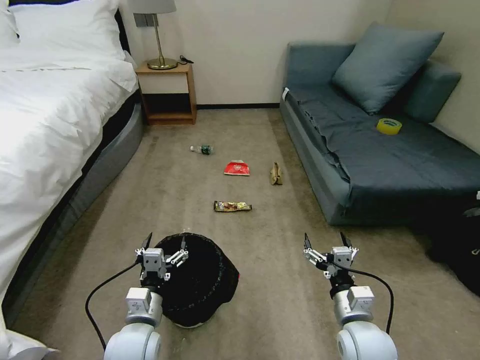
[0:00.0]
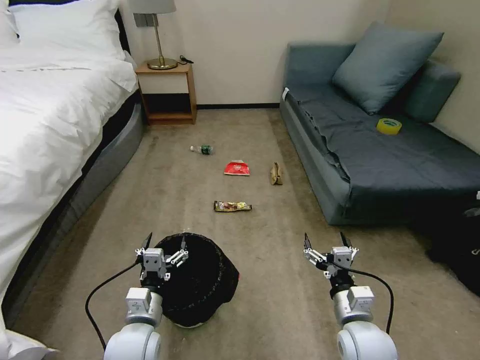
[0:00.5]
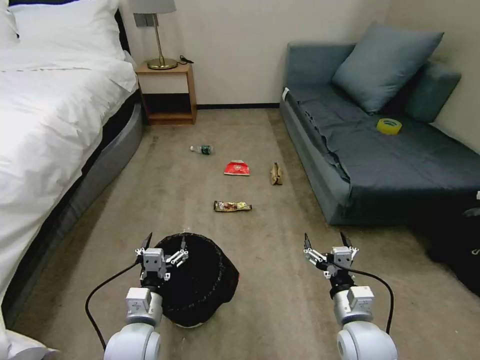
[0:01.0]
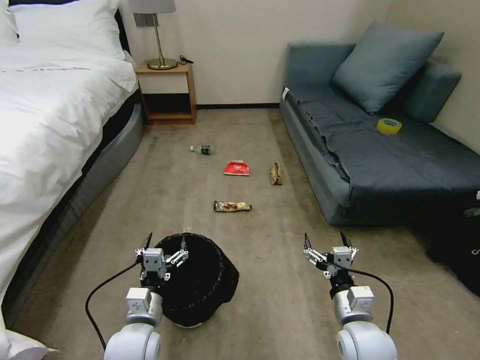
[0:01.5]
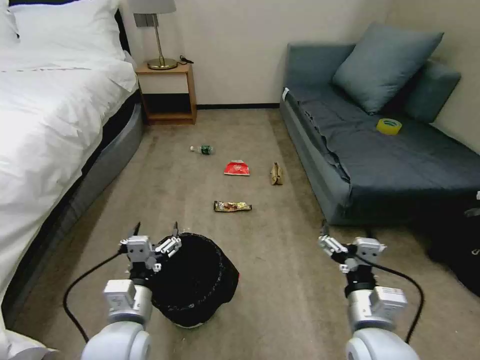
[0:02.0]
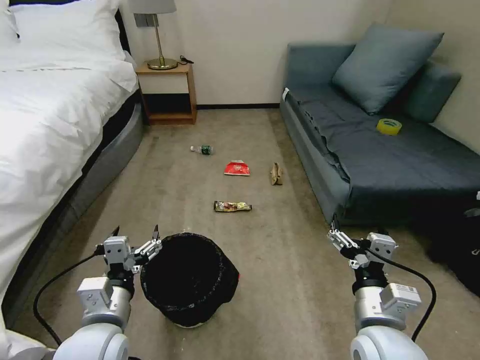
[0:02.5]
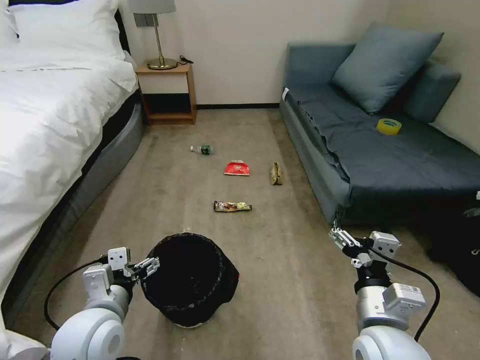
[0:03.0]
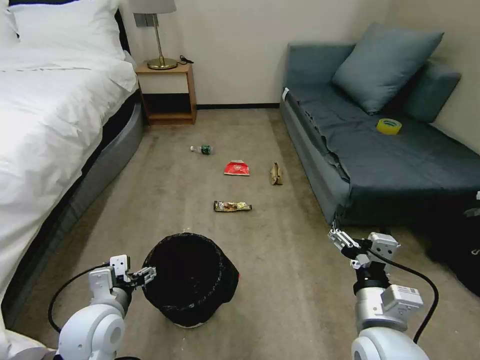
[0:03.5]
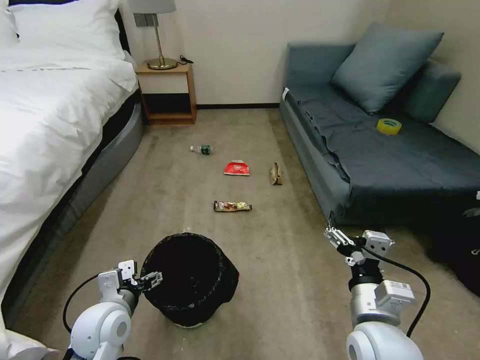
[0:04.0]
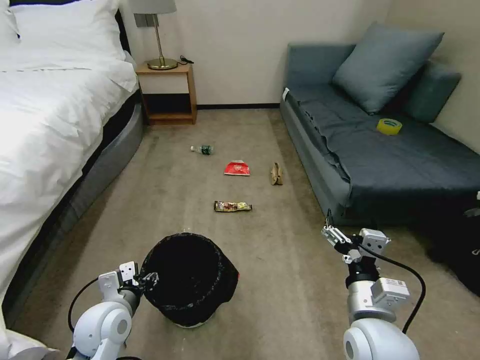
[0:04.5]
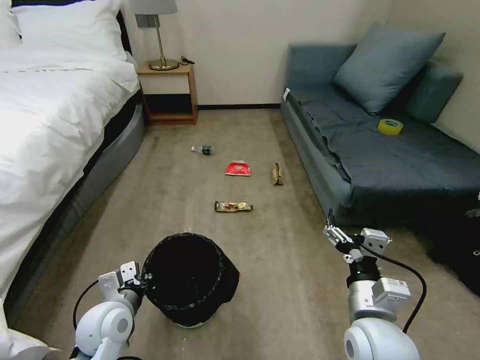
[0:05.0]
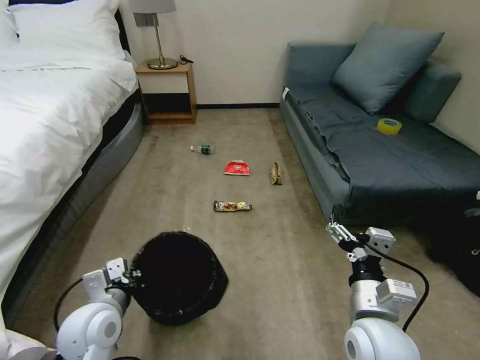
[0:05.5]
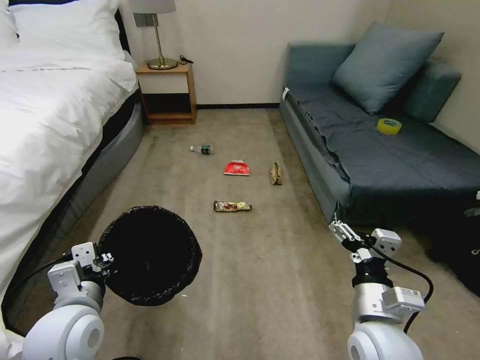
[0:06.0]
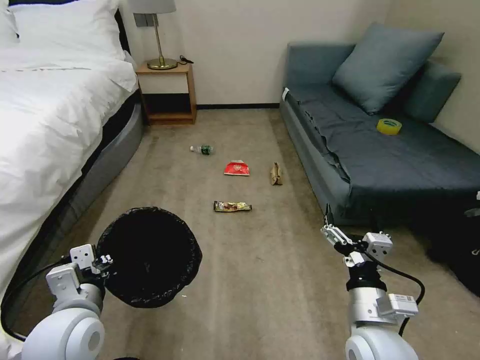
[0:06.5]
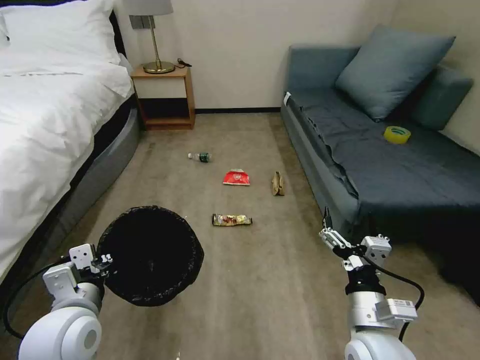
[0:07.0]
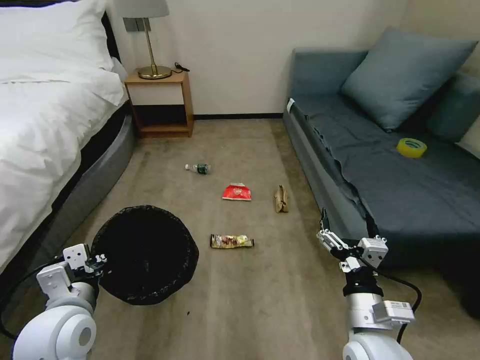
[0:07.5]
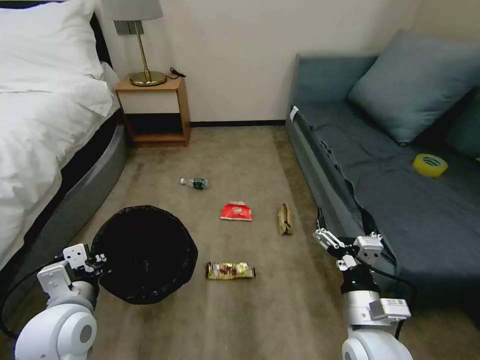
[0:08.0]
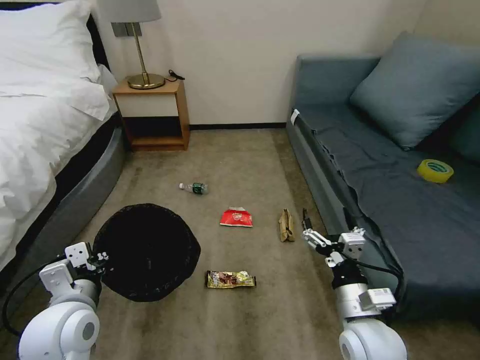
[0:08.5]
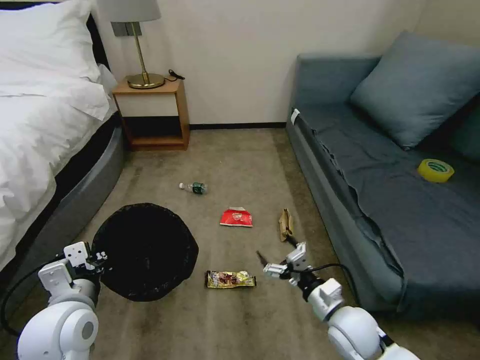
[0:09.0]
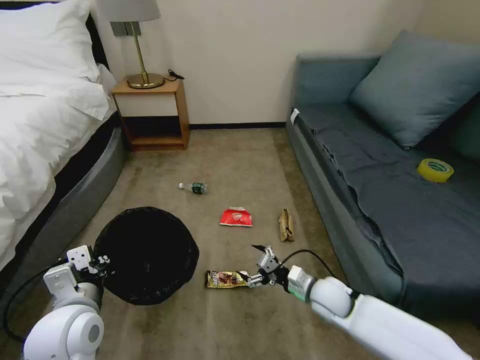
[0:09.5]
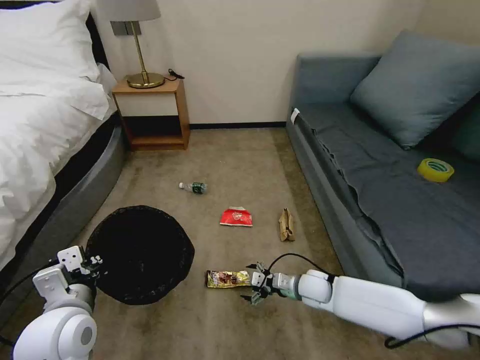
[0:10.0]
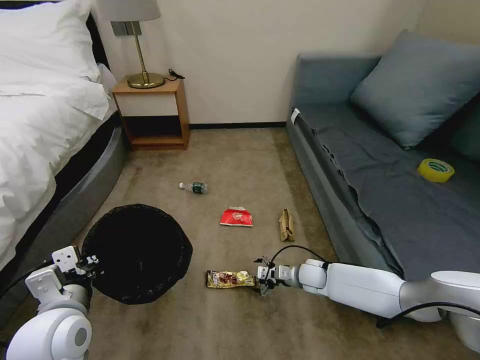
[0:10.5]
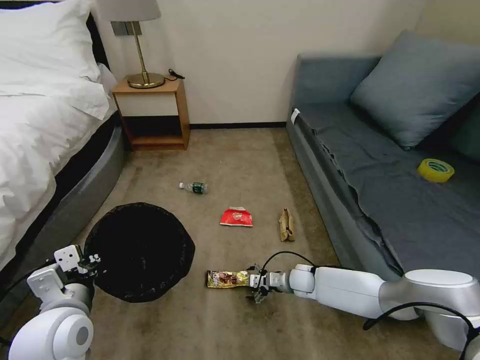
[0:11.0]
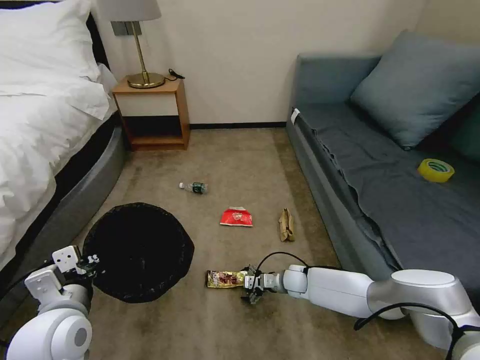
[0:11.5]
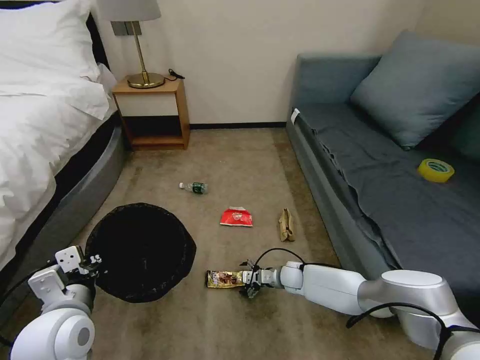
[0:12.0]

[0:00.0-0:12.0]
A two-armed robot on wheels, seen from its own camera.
Task of the whole recording: Pick up the trash bin, then pick up the garbage on the floor and place it into the trash bin.
0:02.0 to 0:04.0: The left gripper travels to the left by some 5 cm.
0:04.0 to 0:06.0: The left gripper travels upward by roughly 10 cm, and closes up.
0:08.0 to 0:10.0: The right gripper moves forward and downward, about 25 cm.
0:10.0 to 0:12.0: The right gripper heads downward and forward, covering approximately 10 cm.

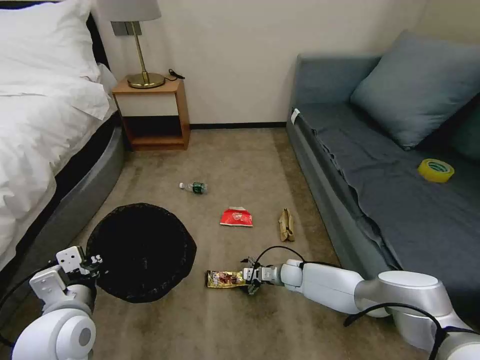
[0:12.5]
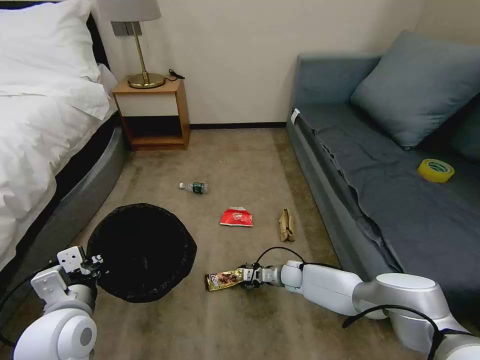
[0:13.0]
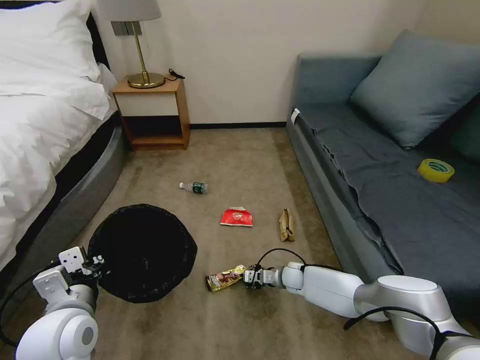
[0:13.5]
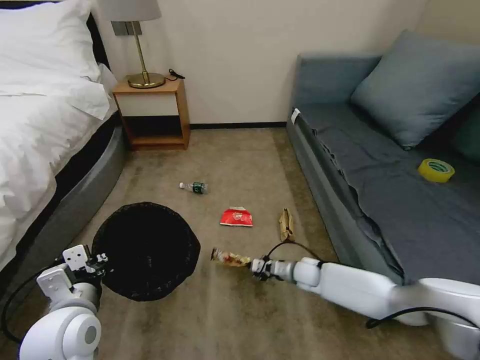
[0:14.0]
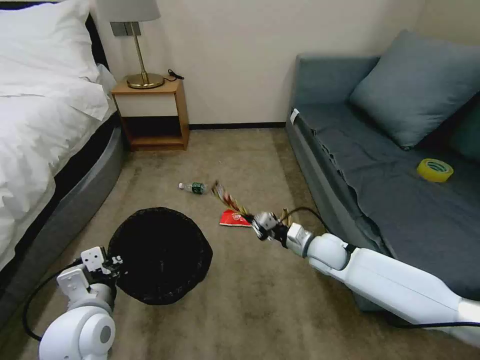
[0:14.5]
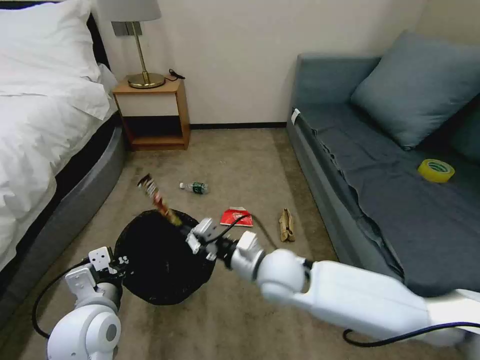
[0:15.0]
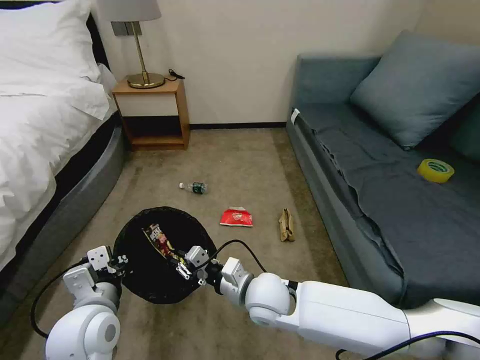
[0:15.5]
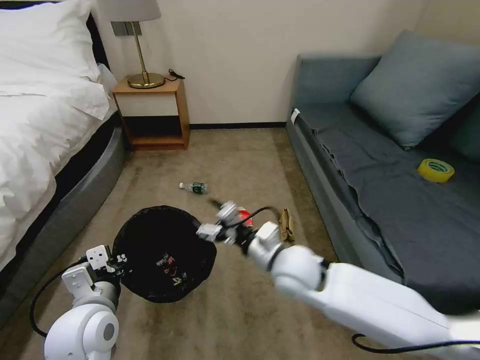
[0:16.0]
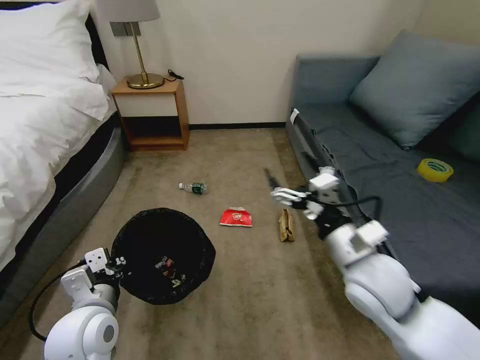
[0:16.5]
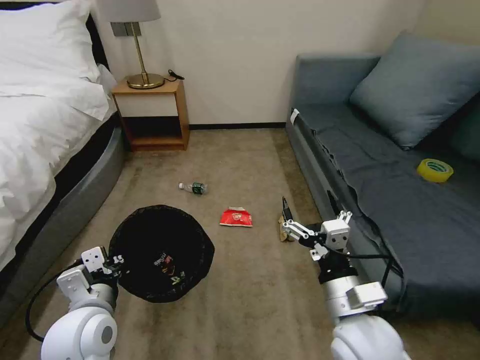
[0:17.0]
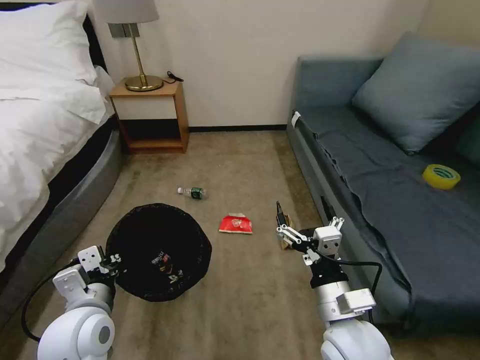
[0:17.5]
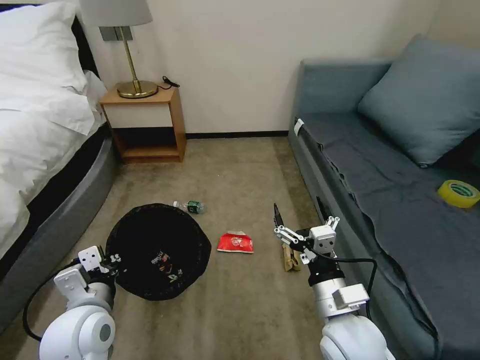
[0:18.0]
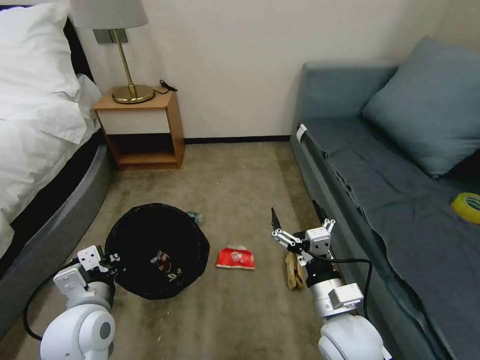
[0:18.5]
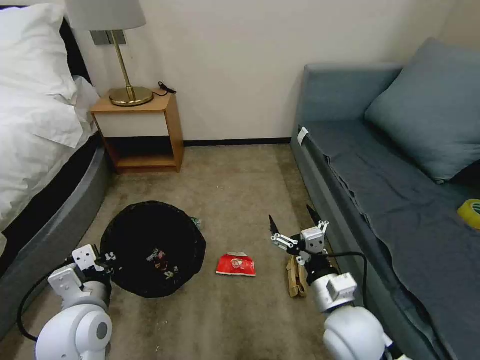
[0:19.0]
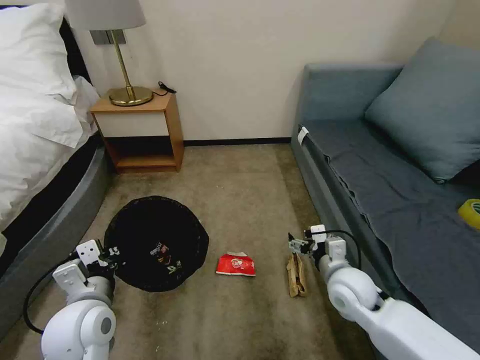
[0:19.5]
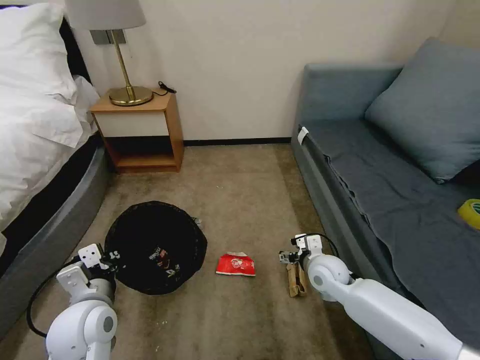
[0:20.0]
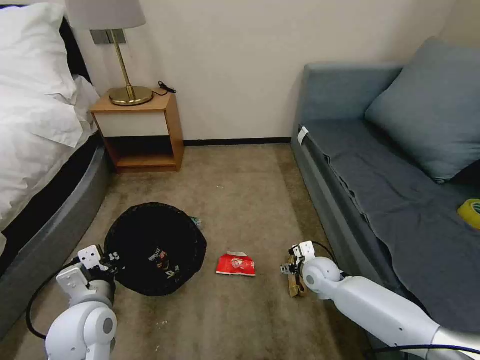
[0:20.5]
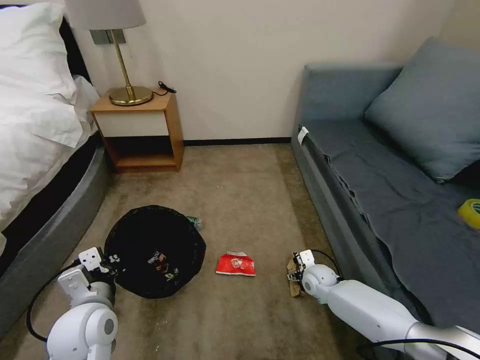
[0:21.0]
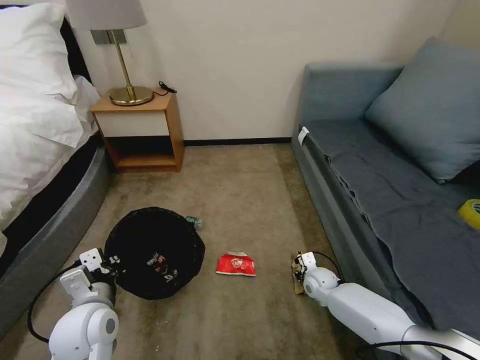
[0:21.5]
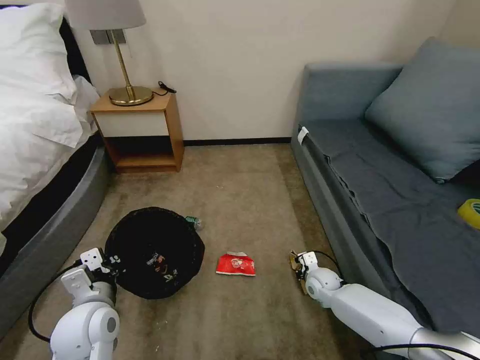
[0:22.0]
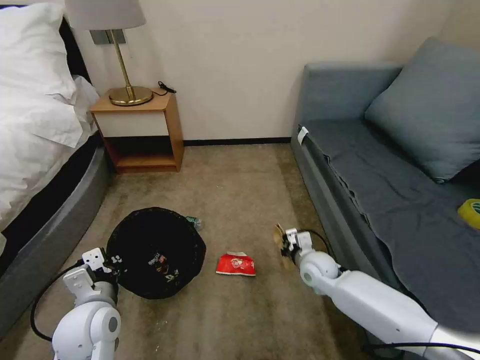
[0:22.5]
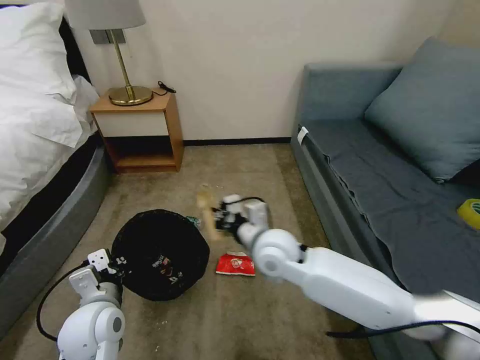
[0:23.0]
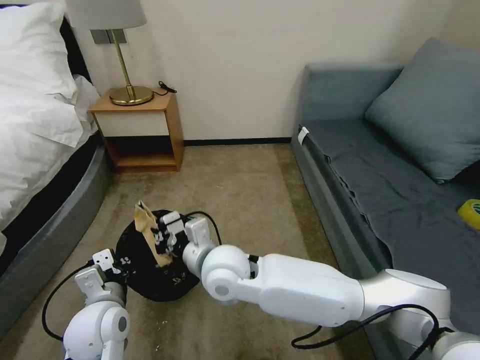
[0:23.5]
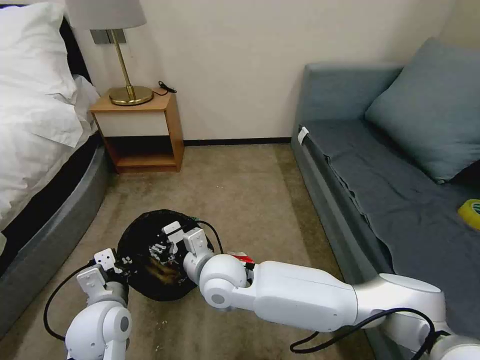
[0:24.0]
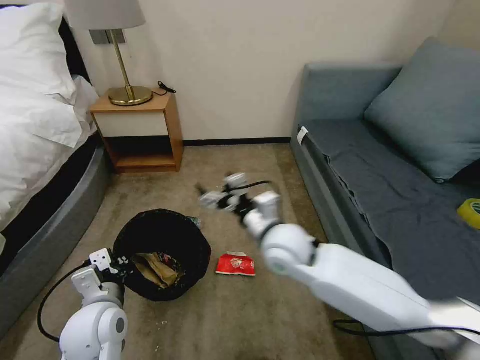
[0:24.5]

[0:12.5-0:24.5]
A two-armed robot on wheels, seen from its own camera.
Task of the whole recording: Pick up the trash bin, then pick up the garbage on the floor and place it into the trash bin.
0:12.5 to 0:14.5: The right gripper travels upward by roughly 20 cm, and closes its fingers.
0:14.5 to 0:16.5: The right gripper is displaced backward and upward by some 20 cm, moves some 15 cm to the left and comes back, and opens.
0:16.5 to 0:18.5: The right gripper shifts some 10 cm downward and backward.
0:18.5 to 0:20.5: The right gripper is displaced forward and downward by some 25 cm.
0:20.5 to 0:22.5: The right gripper travels downward and back again, roughly 10 cm each way, and closes its fingers.
0:22.5 to 0:24.5: The right gripper moves upward and to the left, some 20 cm, and opens up.

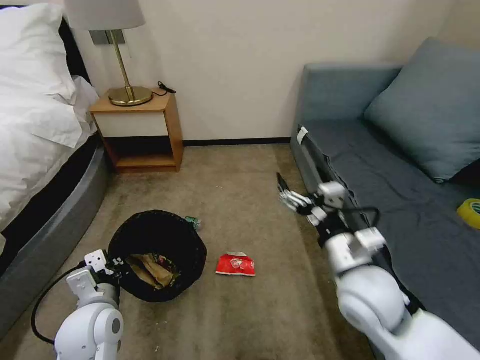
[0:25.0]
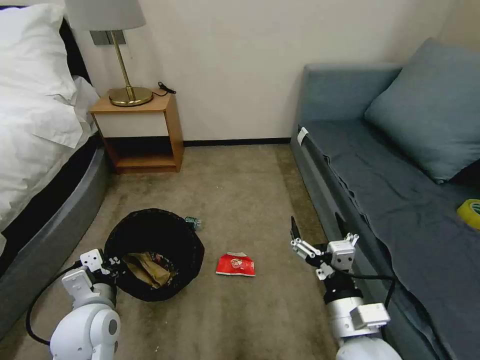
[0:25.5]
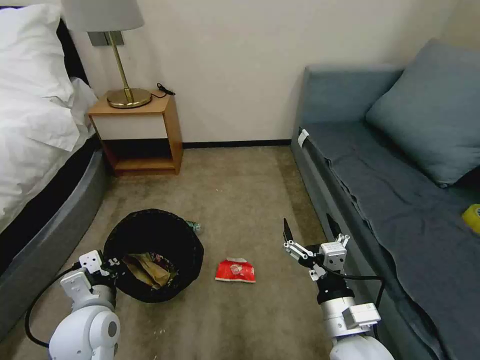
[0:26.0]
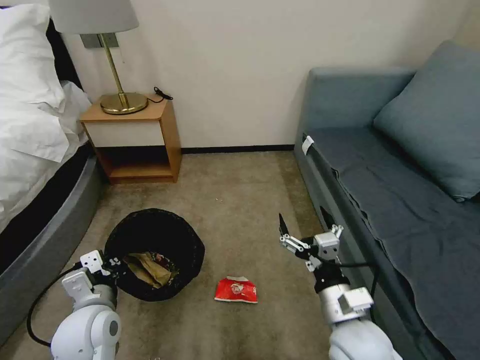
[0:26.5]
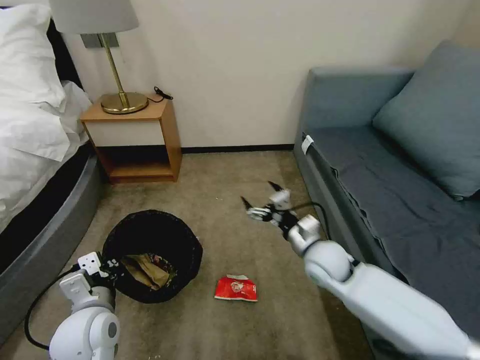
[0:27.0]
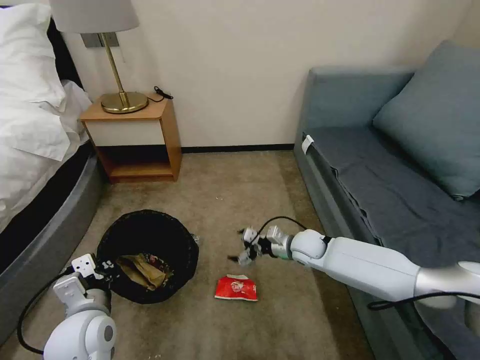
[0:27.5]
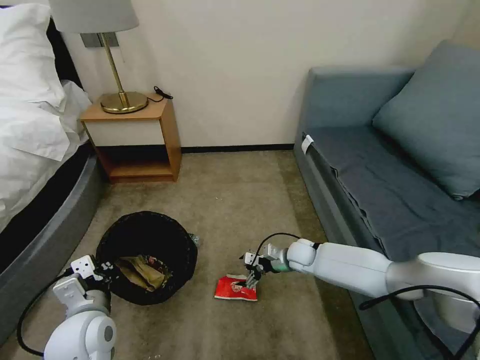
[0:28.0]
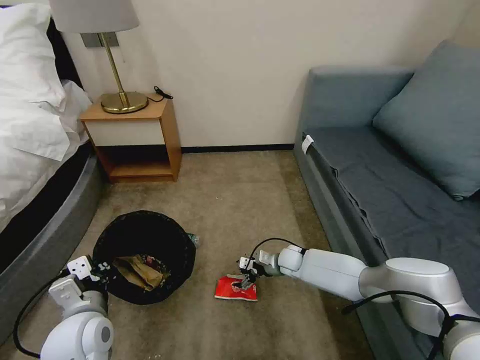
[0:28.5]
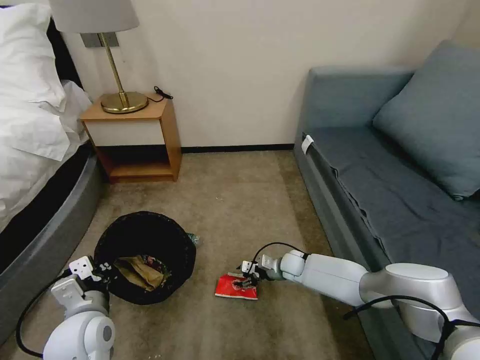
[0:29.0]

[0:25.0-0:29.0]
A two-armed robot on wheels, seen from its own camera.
Task of the whole recording: Pick up the trash bin, then pick up the garbage on the floor and place it into the trash bin.
0:25.0 to 0:27.0: The right gripper shifts some 15 cm forward and downward.
0:27.0 to 0:29.0: The right gripper travels downward and forward by about 20 cm, and closes.
